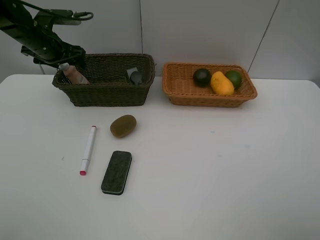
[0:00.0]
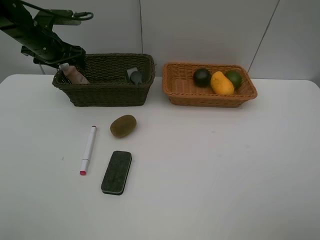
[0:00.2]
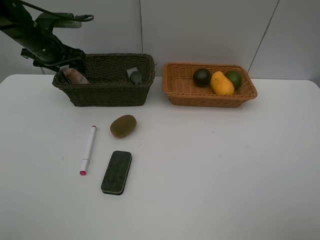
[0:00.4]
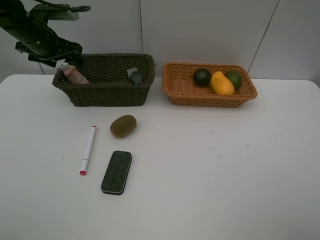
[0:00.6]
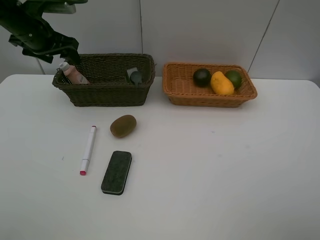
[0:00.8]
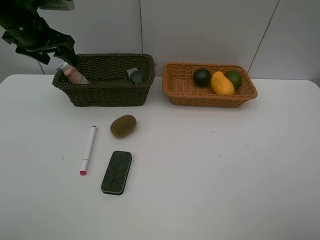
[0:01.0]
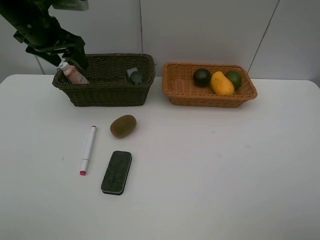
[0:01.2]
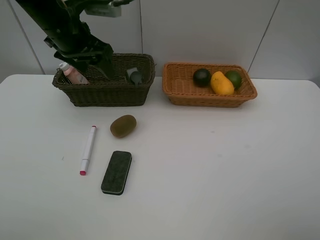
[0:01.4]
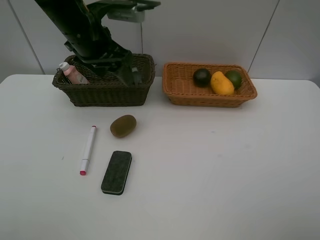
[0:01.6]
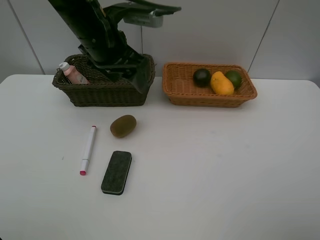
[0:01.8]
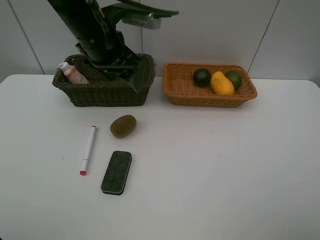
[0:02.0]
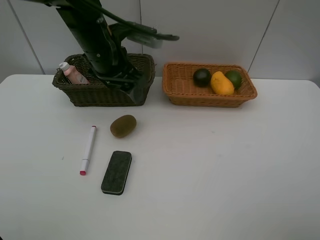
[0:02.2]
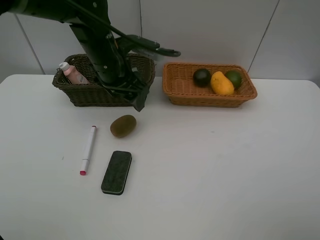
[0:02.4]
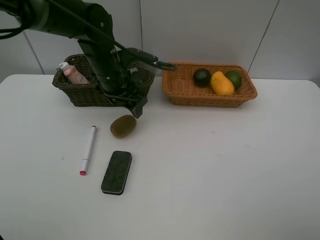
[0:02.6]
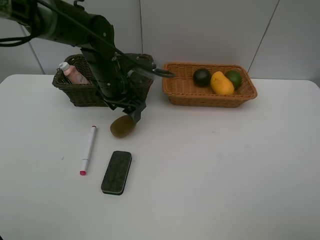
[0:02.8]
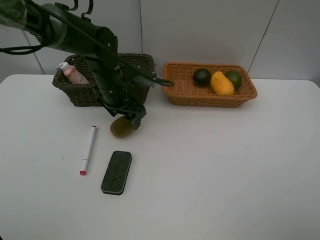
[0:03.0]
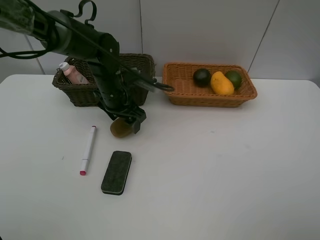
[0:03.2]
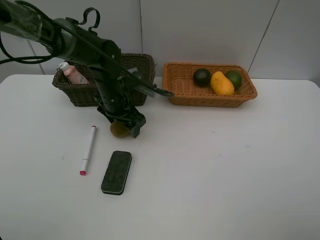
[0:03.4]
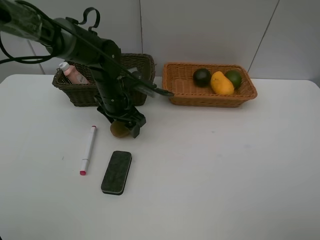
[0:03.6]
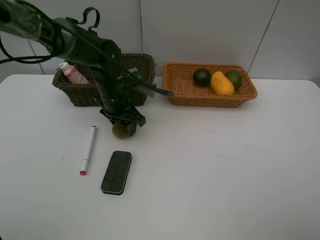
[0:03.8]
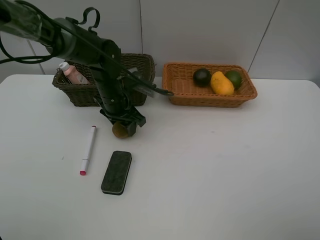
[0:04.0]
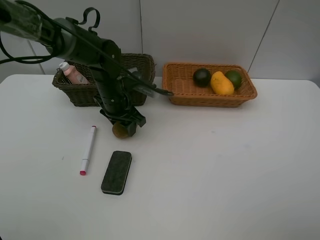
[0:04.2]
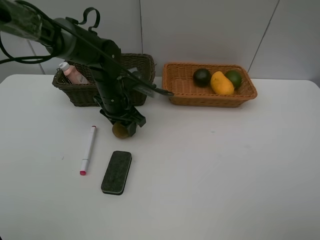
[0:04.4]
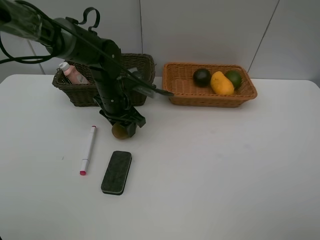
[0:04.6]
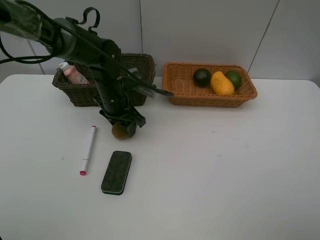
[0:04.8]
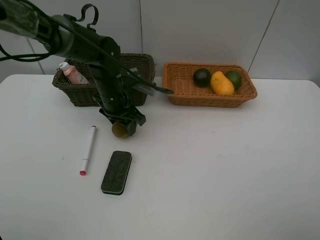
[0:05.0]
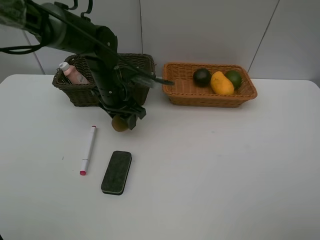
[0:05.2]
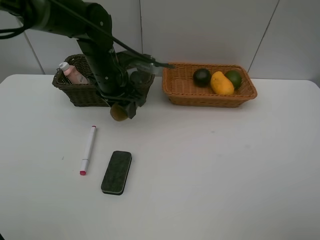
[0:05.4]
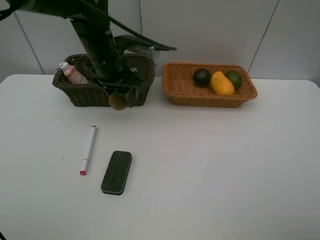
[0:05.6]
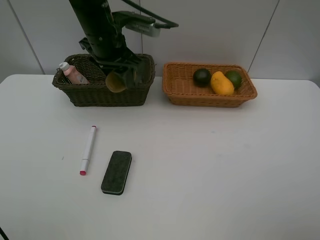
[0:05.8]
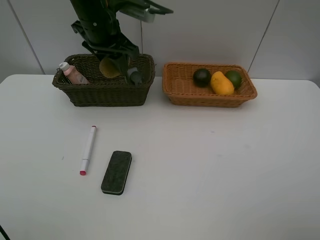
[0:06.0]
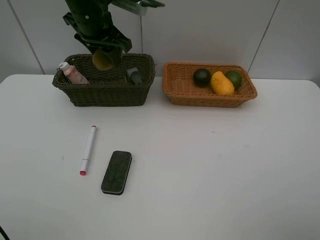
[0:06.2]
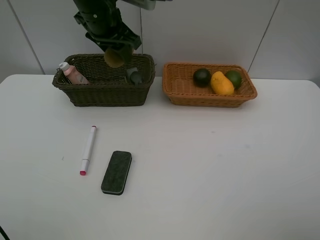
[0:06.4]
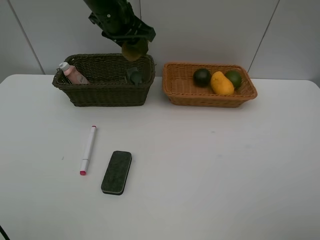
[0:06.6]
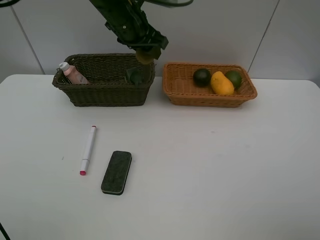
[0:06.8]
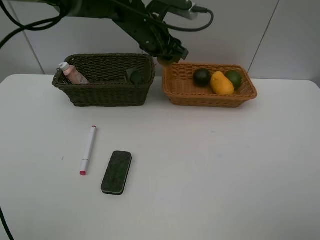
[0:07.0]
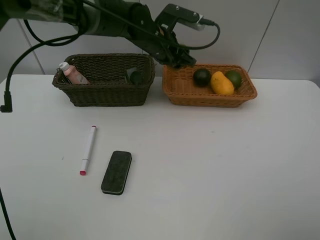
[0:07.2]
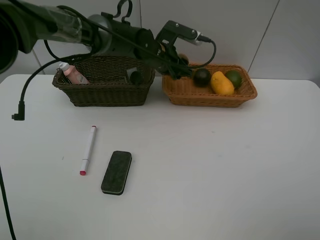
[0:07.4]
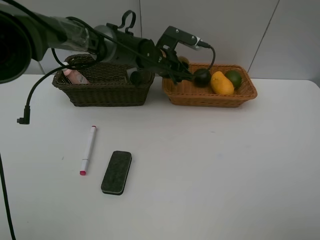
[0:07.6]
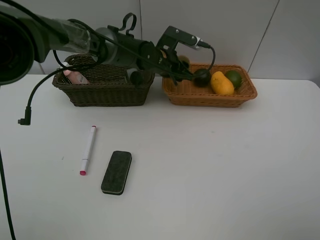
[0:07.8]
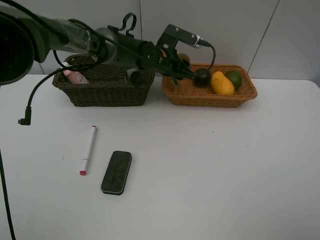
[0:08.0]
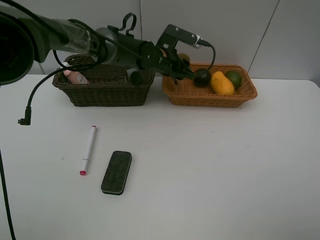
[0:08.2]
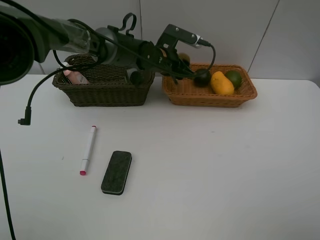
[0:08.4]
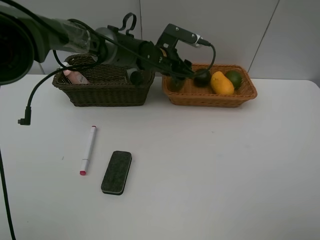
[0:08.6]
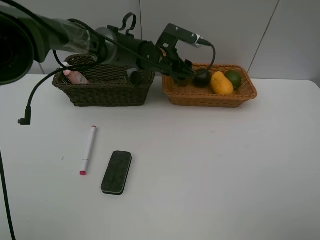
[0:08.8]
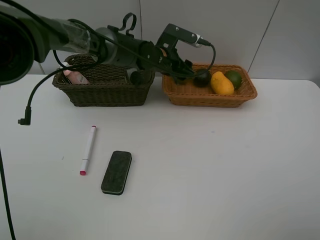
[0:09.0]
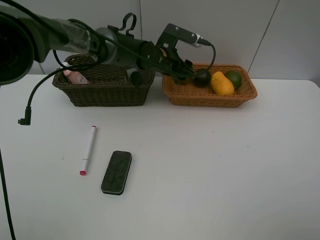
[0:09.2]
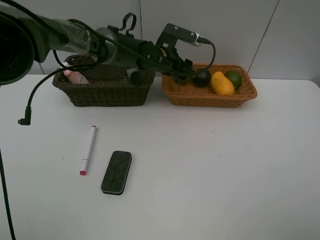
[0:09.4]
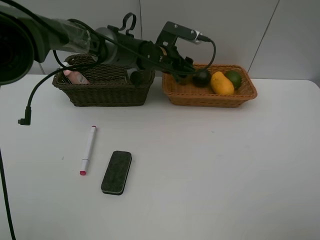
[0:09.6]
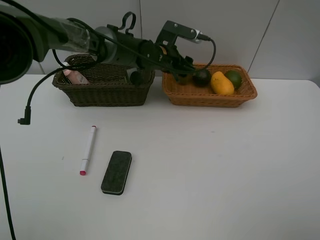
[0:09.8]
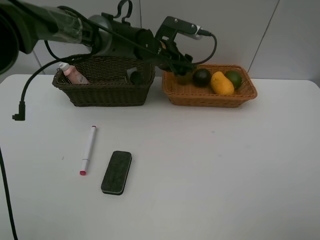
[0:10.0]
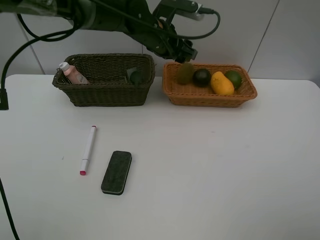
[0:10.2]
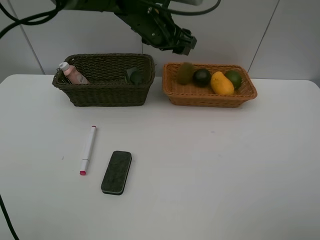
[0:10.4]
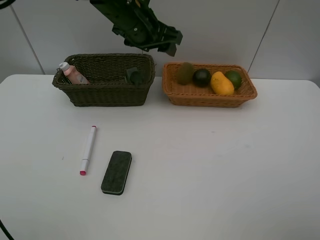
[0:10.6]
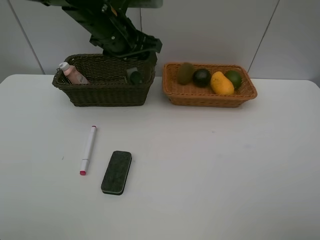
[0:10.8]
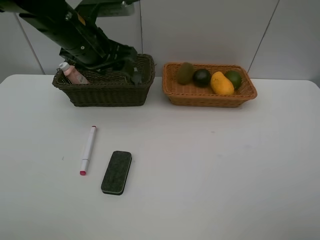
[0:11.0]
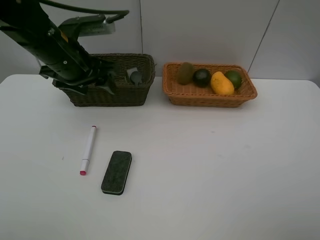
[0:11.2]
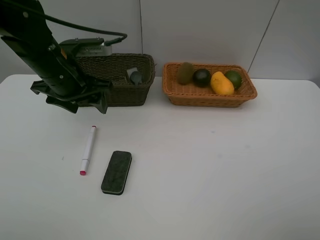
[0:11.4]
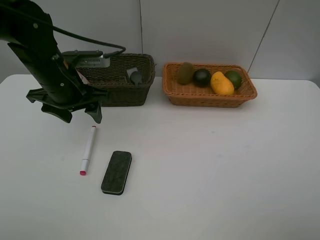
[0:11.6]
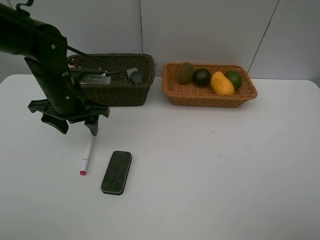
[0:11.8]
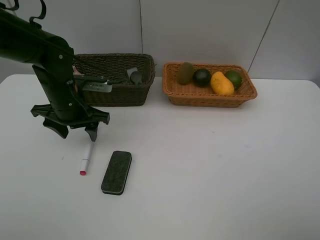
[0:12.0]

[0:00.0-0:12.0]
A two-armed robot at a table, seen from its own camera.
Task of the whole recording: Place multiple objects separately in different baskets.
Step, 0:00.2 to 0:05.4: Pick up kiwi with left gripper.
Step, 0:05.6 to 0:10.0: Place the kiwi in the light basket with left gripper.
0:00.0 to 0:01.6: The left gripper heads to the right, backward and upward, covering about 20 cm.
0:01.6 to 0:03.0: The left gripper is displaced downward by about 15 cm.
0:03.0 to 0:04.4: The left gripper closes.
0:04.4 to 0:06.0: The left gripper goes some 15 cm upward.
0:06.0 to 0:07.6: The left gripper travels downward and to the right by about 15 cm.
0:07.6 to 0:09.0: Both grippers stay about where they are.
0:09.0 to 0:10.4: The left gripper moves upward, approximately 10 cm.
0:10.4 to 0:12.0: The left gripper is displaced to the left, downward and backward by some 20 cm.

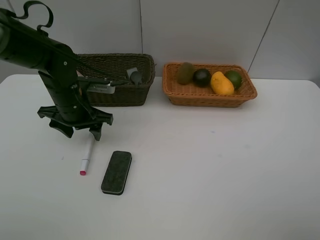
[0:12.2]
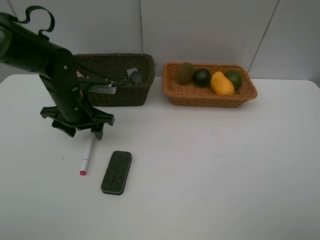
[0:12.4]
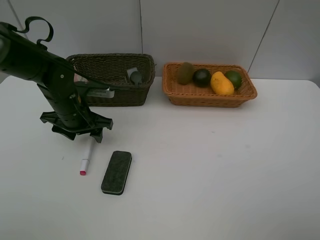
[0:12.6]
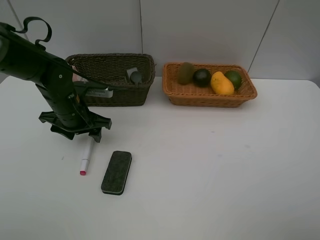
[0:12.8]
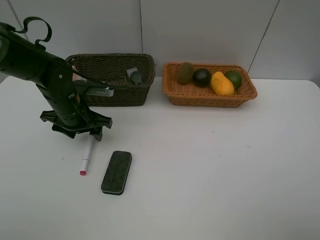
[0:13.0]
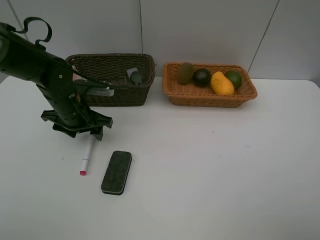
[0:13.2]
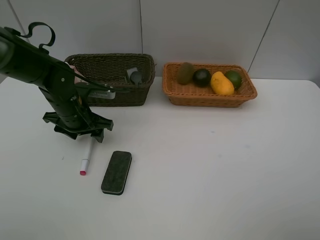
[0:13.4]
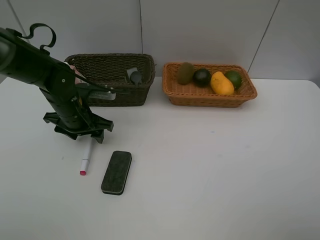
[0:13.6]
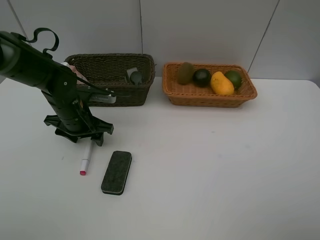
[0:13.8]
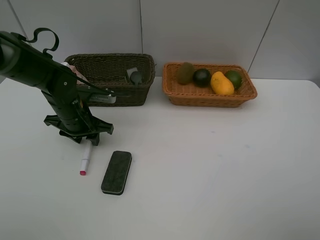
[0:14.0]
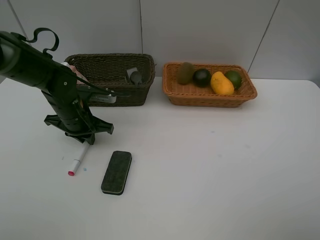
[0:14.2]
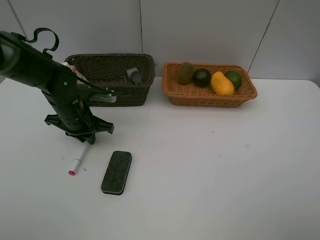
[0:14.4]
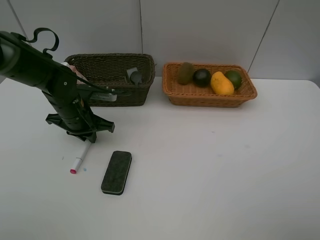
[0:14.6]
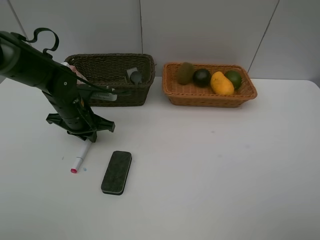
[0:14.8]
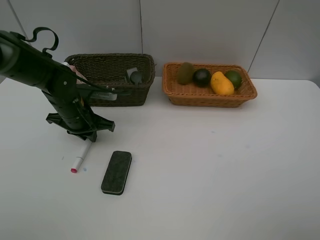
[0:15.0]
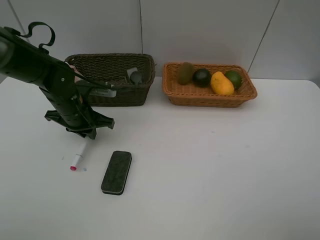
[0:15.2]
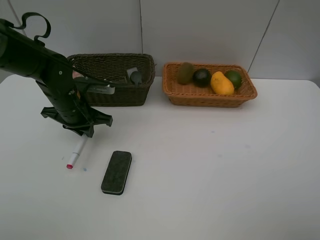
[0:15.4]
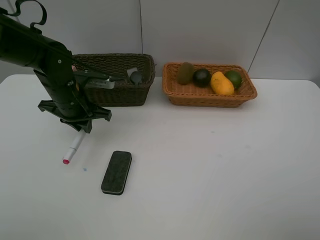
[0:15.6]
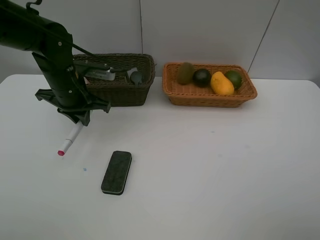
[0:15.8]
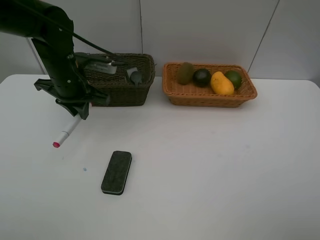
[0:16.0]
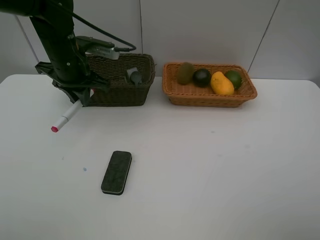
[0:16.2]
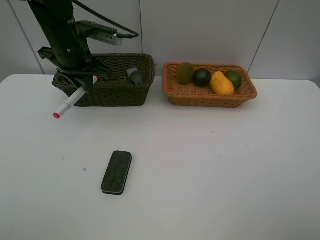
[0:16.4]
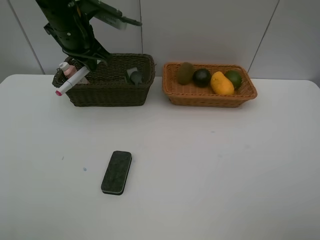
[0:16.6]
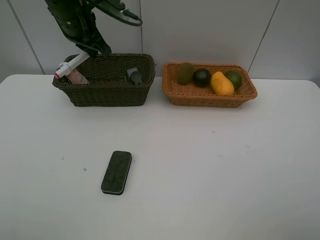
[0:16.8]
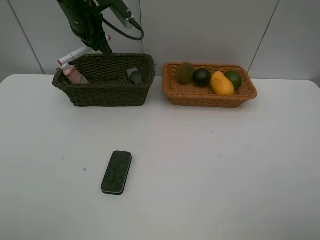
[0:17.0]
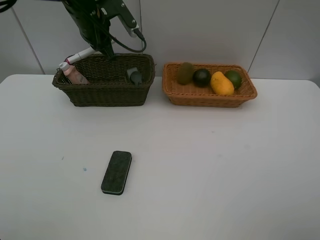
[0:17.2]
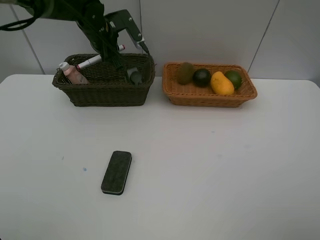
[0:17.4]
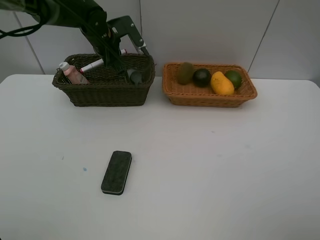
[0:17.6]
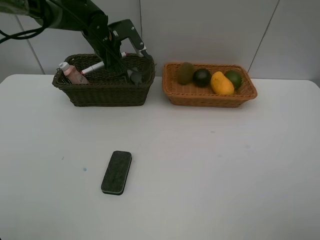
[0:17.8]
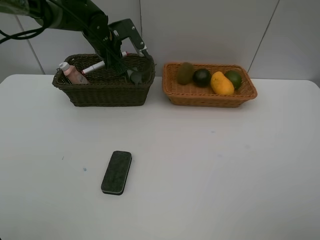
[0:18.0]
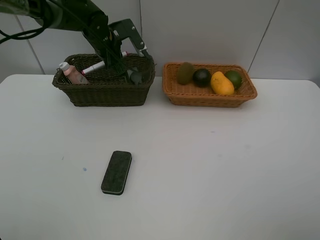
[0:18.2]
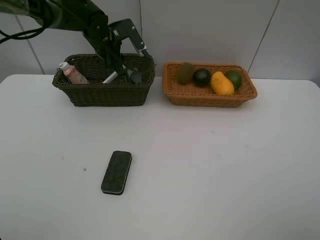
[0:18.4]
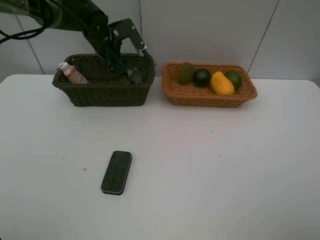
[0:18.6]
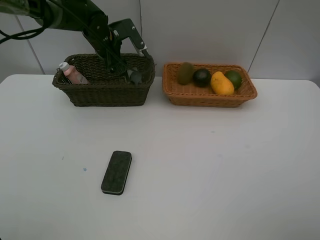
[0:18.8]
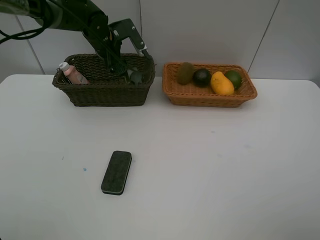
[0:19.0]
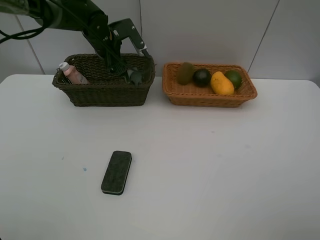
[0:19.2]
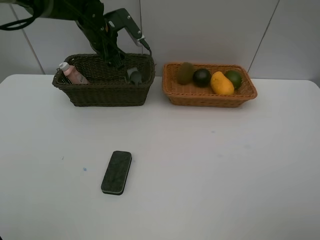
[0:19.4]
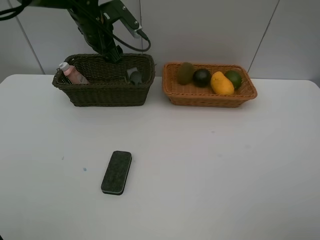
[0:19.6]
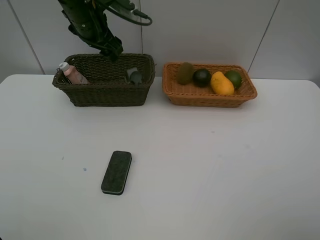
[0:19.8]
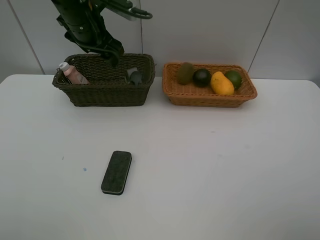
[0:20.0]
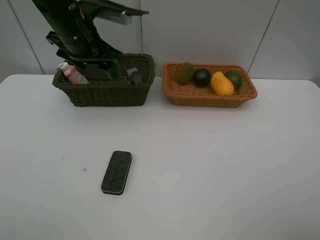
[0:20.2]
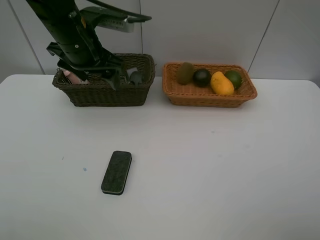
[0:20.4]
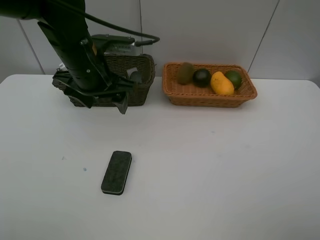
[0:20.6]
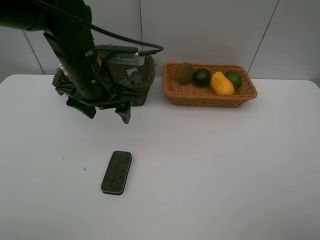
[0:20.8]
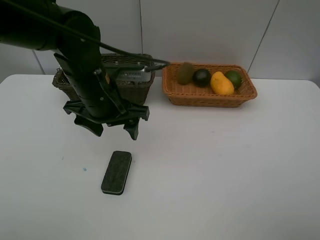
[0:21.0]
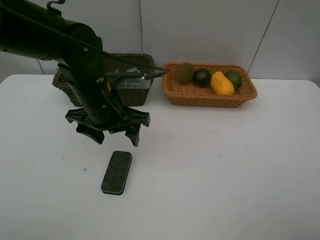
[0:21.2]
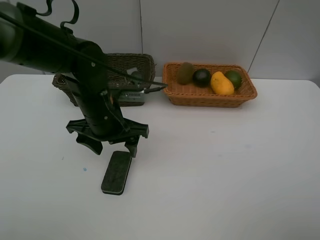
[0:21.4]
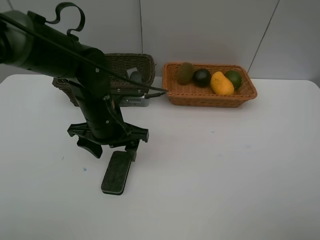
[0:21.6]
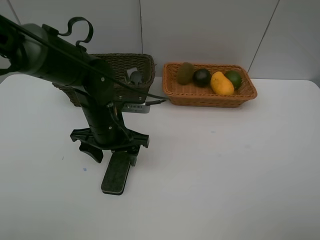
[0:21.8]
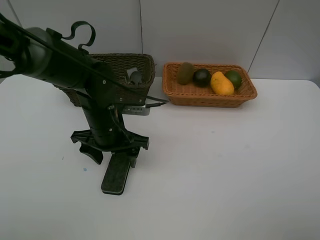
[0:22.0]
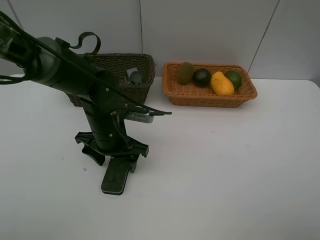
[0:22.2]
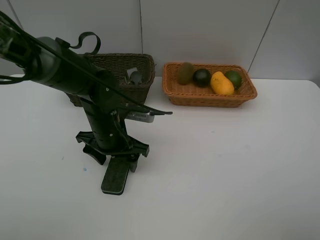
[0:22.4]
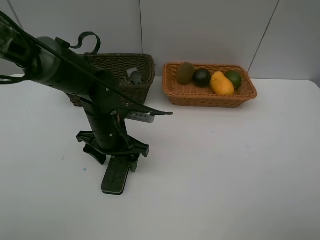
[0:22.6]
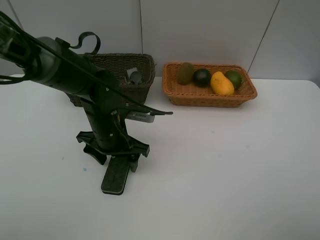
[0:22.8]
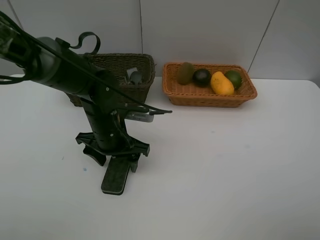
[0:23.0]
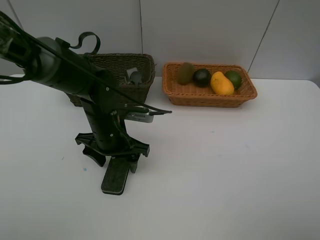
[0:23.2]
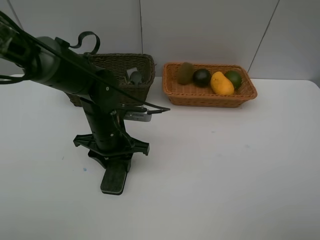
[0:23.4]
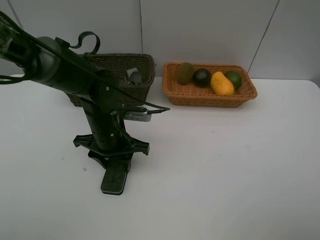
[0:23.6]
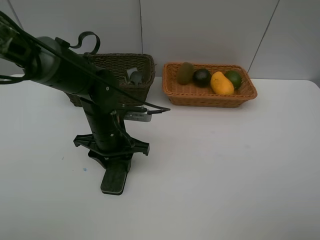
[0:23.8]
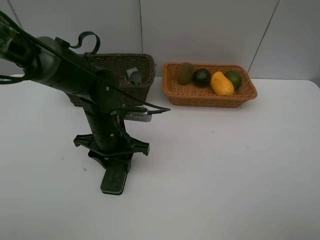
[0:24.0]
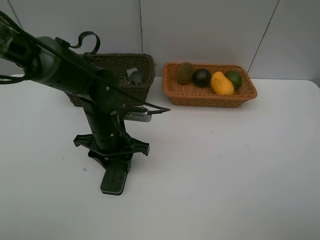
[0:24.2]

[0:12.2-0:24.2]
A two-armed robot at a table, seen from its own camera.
Task of the whole recording: Place multiple objects separately in different baskets.
Step, 0:12.2 to 0:15.4: Pick up the red marker with left gripper.
Step, 0:15.6 to 0:18.8: Place the red marker in the dark basket with left gripper.
0:12.2 to 0:13.8: There are only small adjustments of the grippers.
0:13.8 to 0:15.2: The left gripper closes up.
0:15.2 to 0:16.6: The left gripper heads upward and forward, covering roughly 15 cm.
0:16.6 to 0:18.2: The left gripper travels forward and downward by about 10 cm.
0:18.2 to 0:19.8: The left gripper is displaced upward and backward by roughly 10 cm, and opens up.
0:19.8 to 0:21.2: The left gripper is displaced backward and downward by roughly 20 cm.
0:21.2 to 0:22.6: The left gripper goes roughly 5 cm downward.
0:22.6 to 0:24.2: The left gripper closes its fingers.
